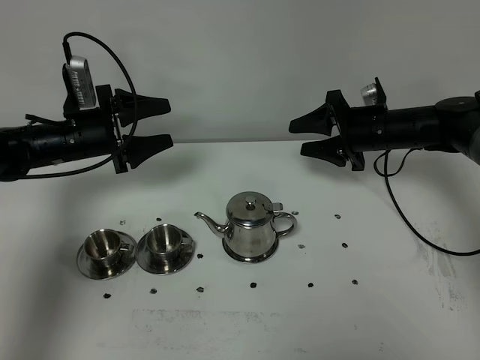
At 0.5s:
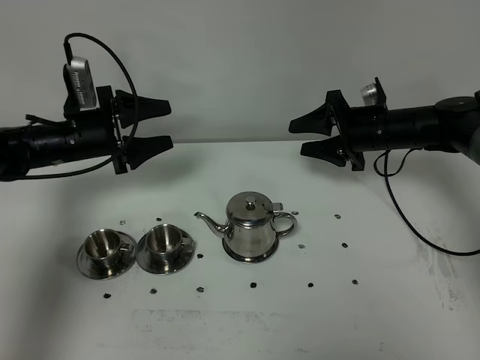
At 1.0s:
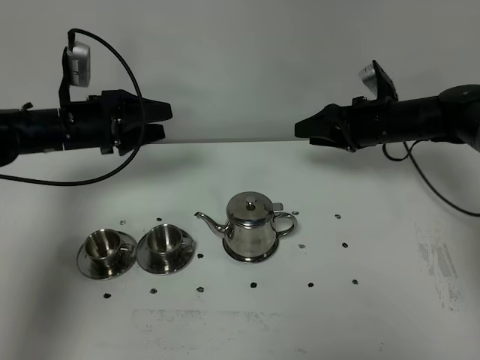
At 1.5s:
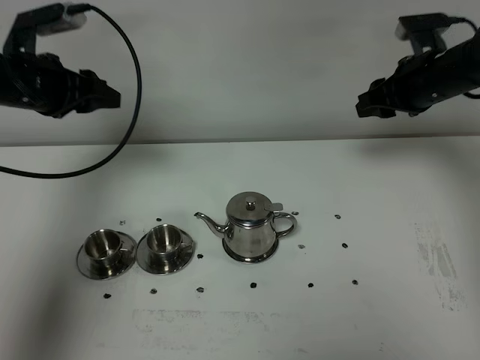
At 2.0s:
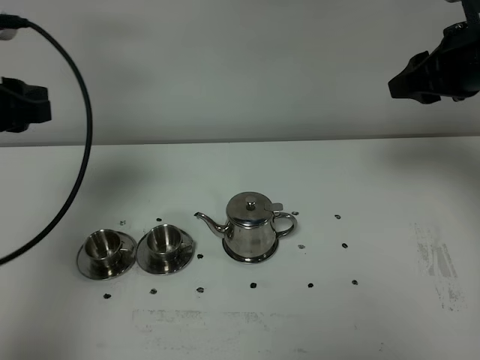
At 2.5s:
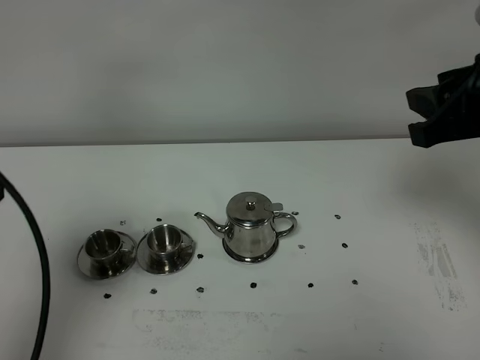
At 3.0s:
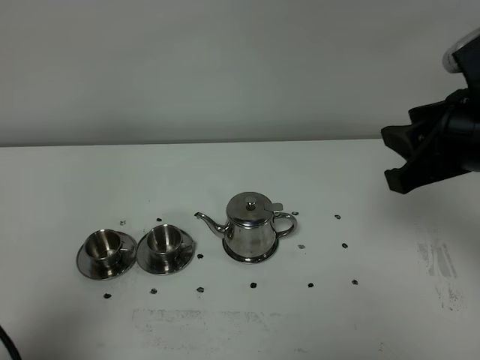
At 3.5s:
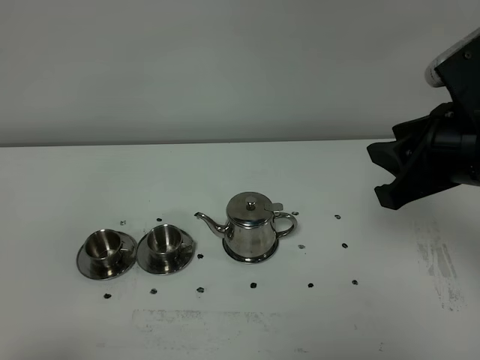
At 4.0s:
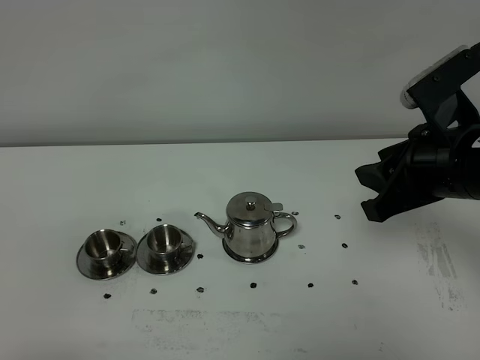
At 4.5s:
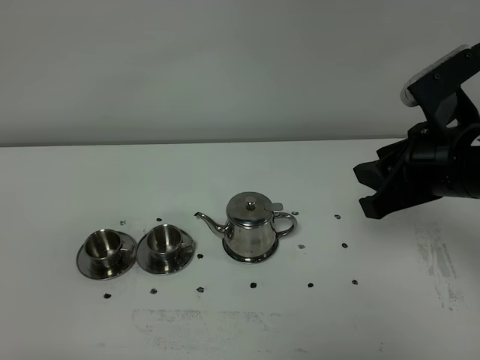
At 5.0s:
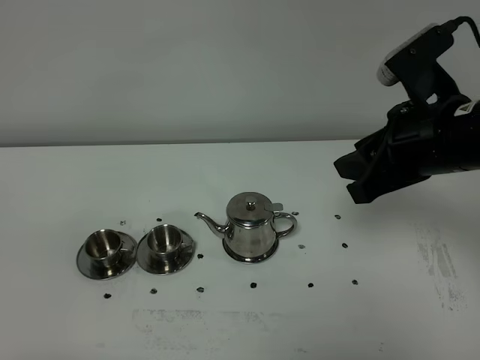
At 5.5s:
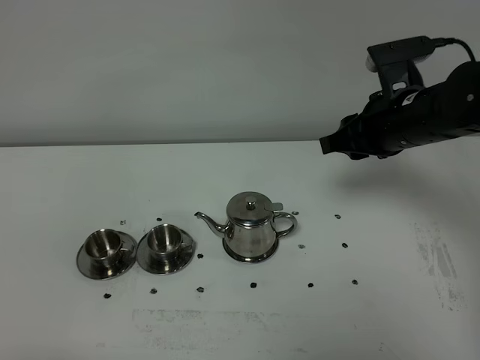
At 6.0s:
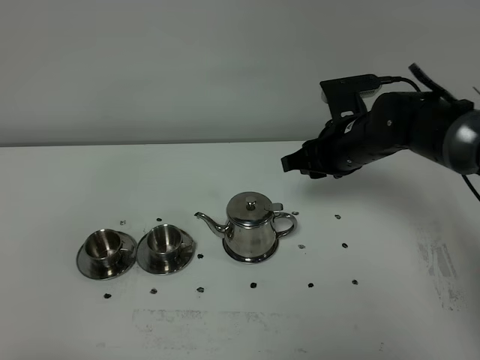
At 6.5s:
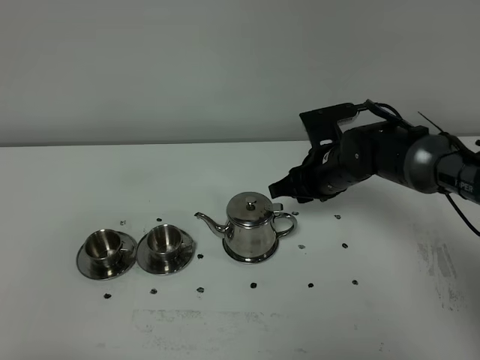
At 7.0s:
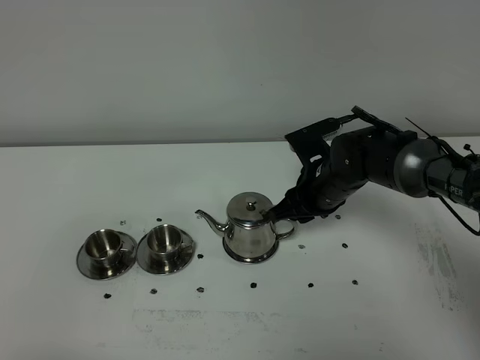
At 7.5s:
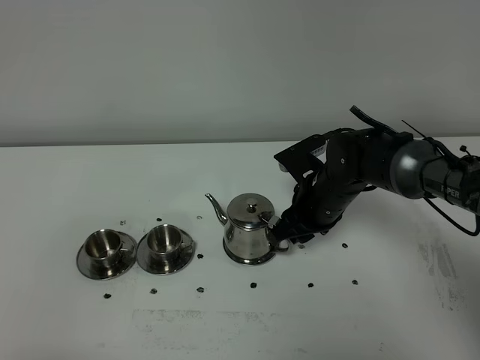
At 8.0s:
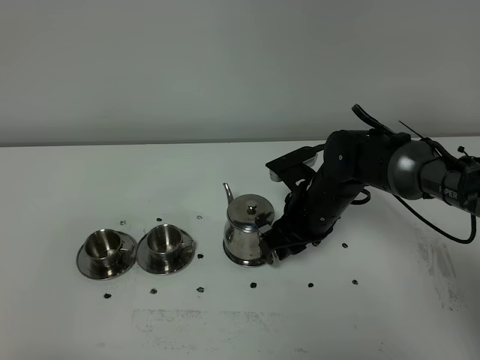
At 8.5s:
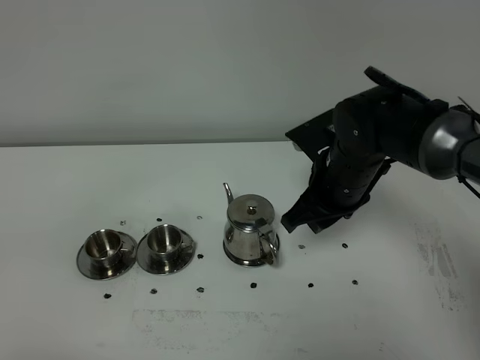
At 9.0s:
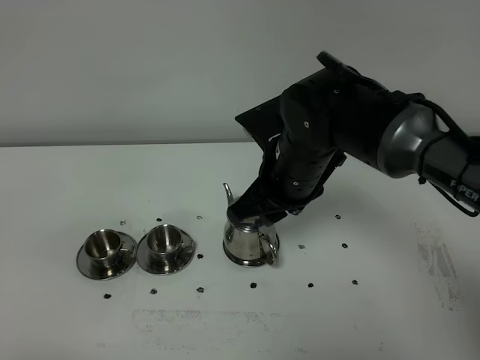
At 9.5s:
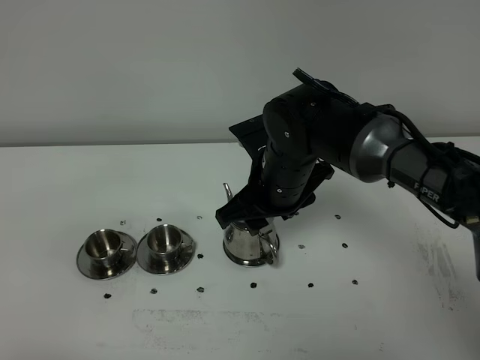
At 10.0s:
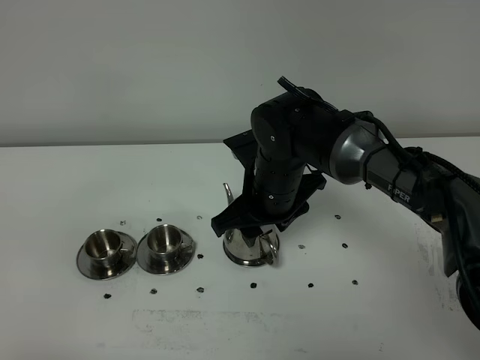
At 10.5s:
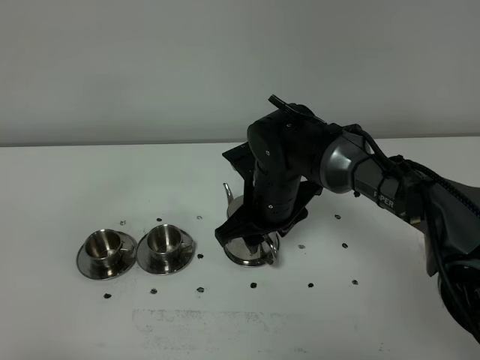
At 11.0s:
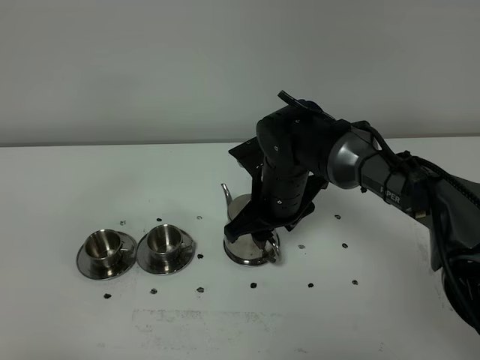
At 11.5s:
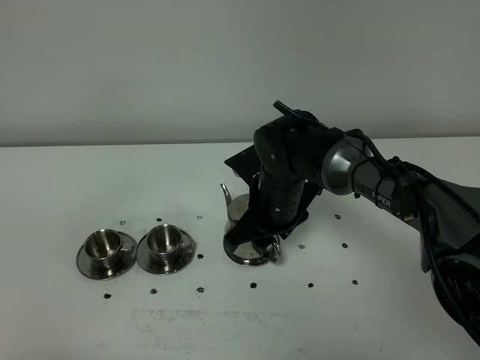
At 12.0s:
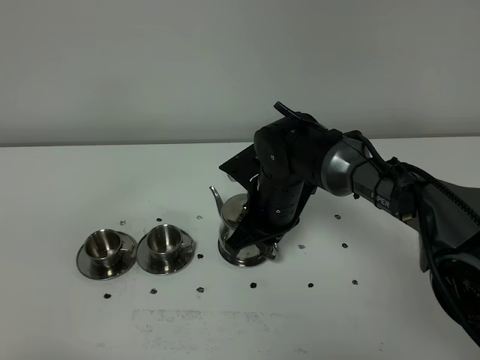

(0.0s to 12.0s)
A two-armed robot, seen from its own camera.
Task of the whole recording: grasp the stainless steel teapot and pour the tea into the two stainless steel teacups one by one, put the stainless steel teapot back in its original place.
0.0s - 2.0s: Both grippers move upward and backward, about 25 cm. The left gripper closes.
2.0s - 4.0s: The right gripper heads backward, covering approximately 10 cm, while the left gripper goes some 30 cm backward.
4.0s - 6.0s: The right gripper heads forward, downward and to the left, covering about 20 cm.
6.0s - 8.0s: The right gripper is displaced downward by roughly 5 cm.
8.0s - 10.0s: The right gripper heads to the left and upward, covering approximately 10 cm, and opens its fingers.
10.0s - 12.0s: The right gripper closes up.

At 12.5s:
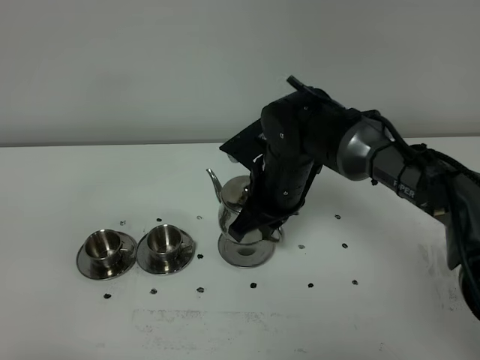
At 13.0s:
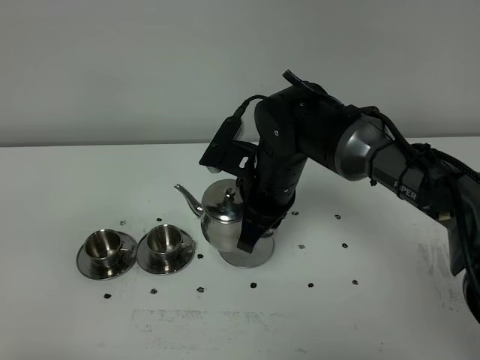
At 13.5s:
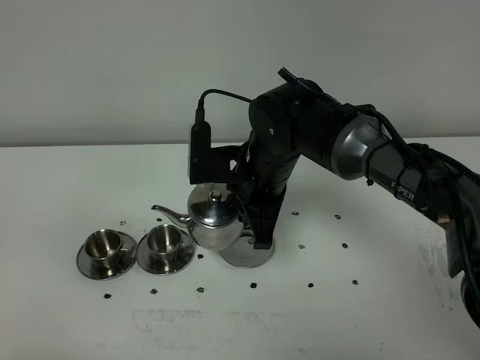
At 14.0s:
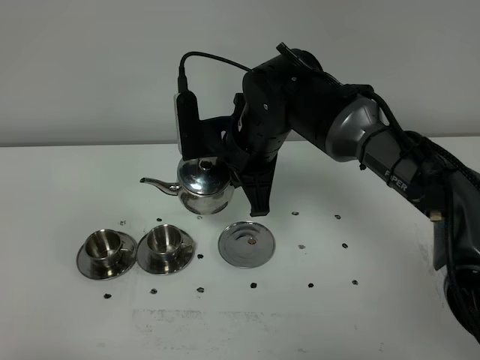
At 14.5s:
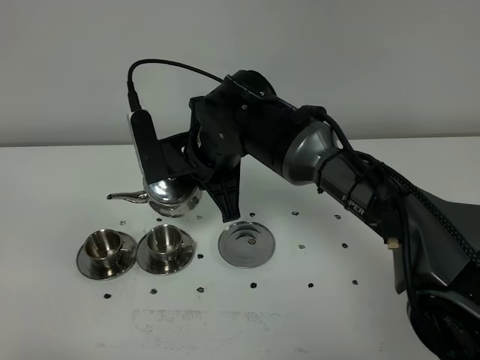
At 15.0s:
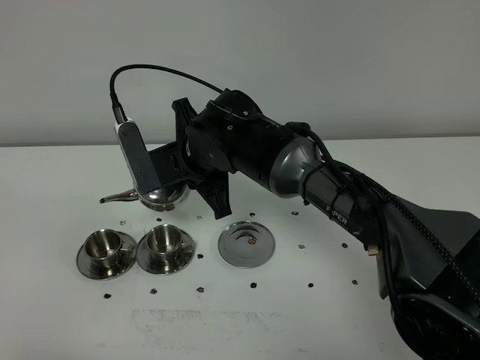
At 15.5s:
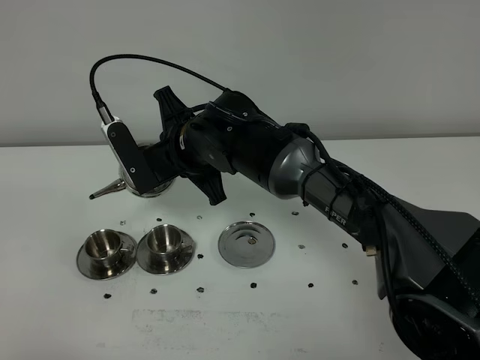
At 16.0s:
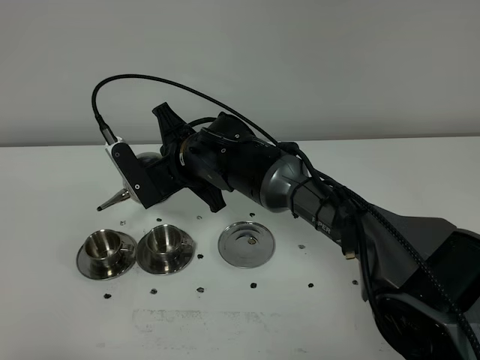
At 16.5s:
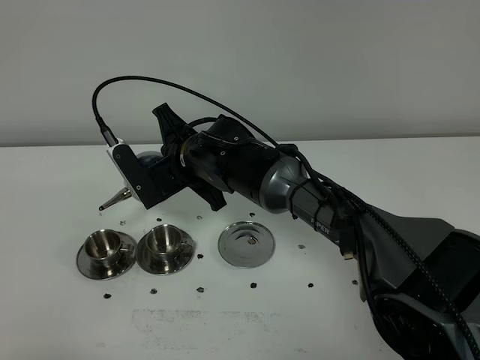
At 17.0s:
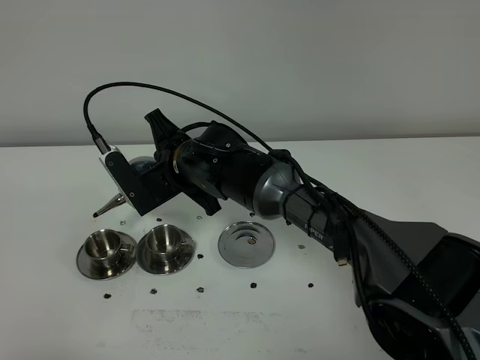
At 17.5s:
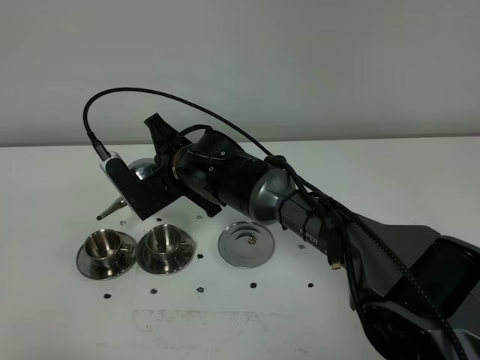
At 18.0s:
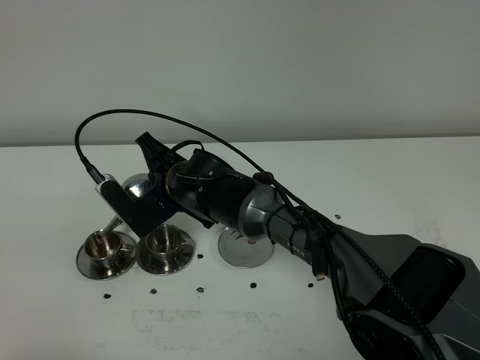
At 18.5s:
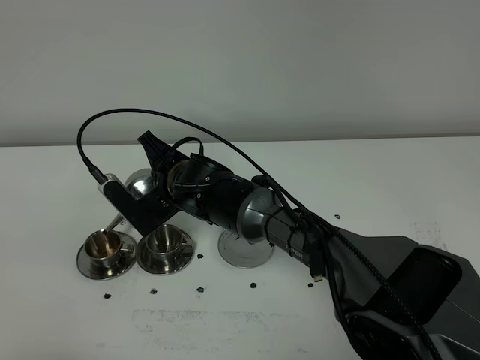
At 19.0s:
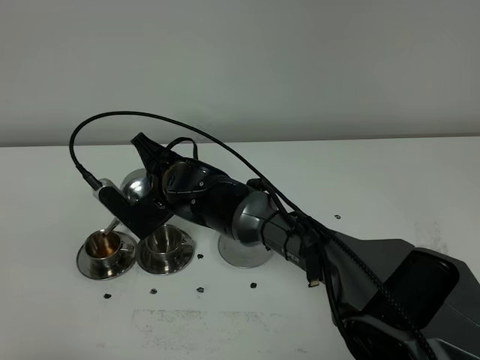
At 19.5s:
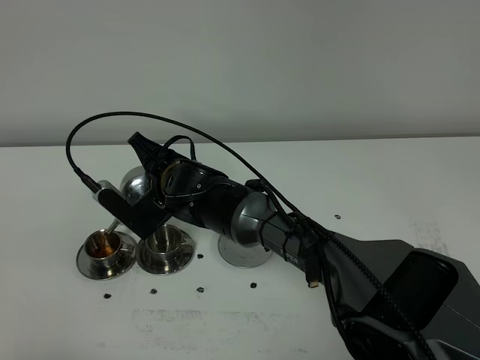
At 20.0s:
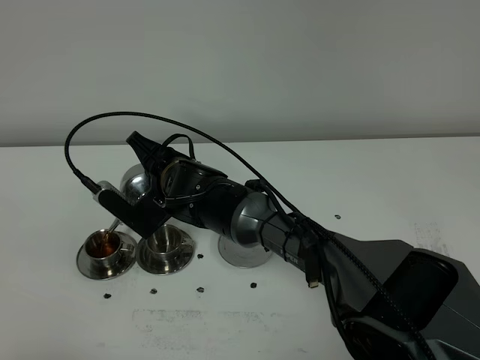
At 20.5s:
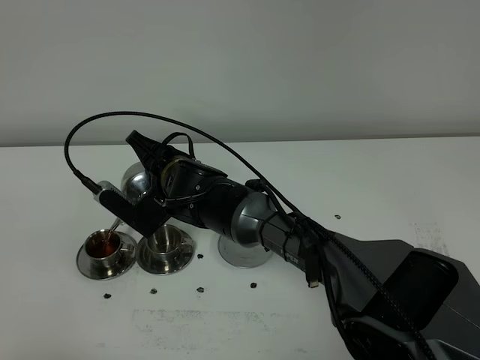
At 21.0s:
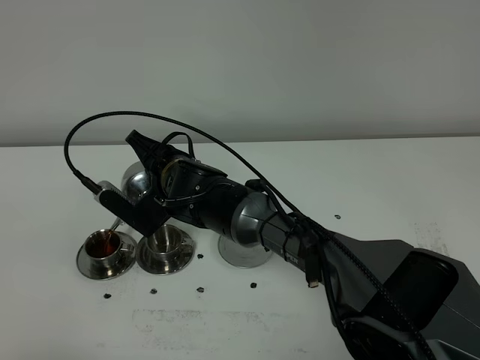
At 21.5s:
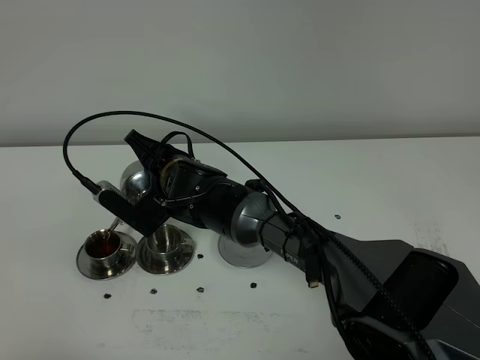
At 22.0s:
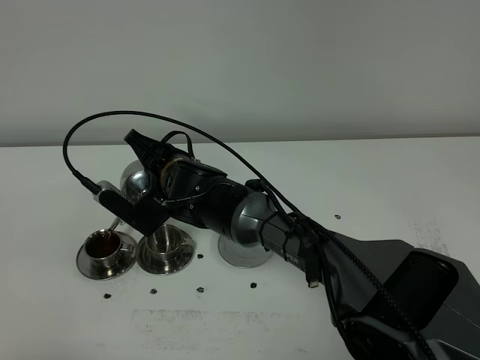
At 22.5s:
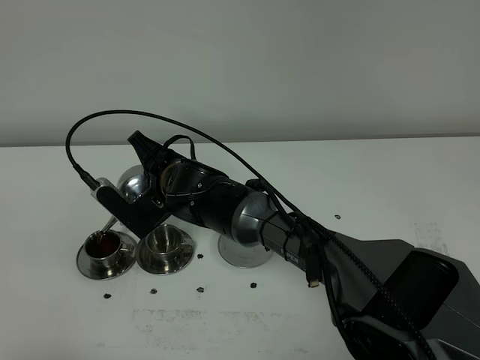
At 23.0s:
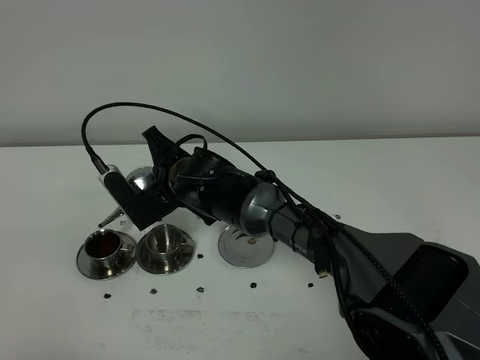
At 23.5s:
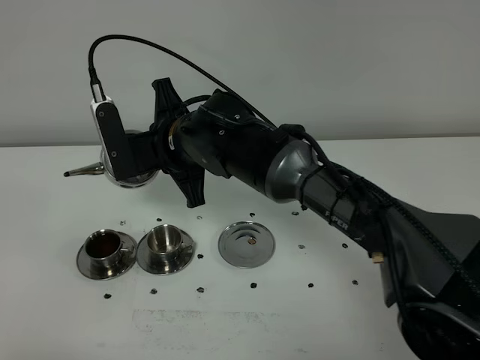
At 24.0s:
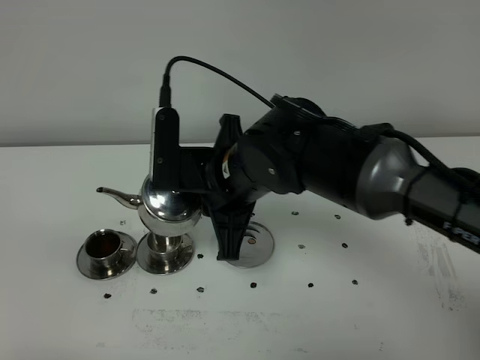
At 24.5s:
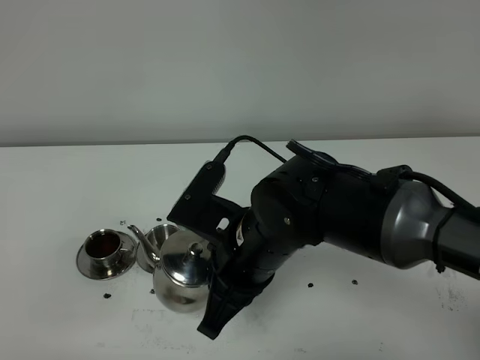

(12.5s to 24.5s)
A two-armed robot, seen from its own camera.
Task of the whole recording: grasp the stainless steel teapot and pour the tea into the two stainless steel teacups one by one, put the stainless steel teapot back in its original place.
12.5s - 14.5s: The right gripper shifts some 5 cm to the left.
14.5s - 16.5s: The right gripper moves approximately 5 cm.
18.5s - 22.5s: The grippers make only small movements.
22.5s - 24.5s: The right gripper heads backward, to the right and upward, covering about 20 cm.

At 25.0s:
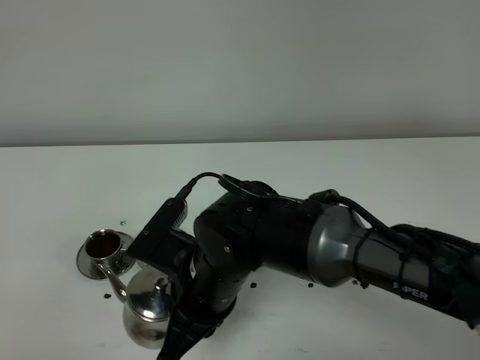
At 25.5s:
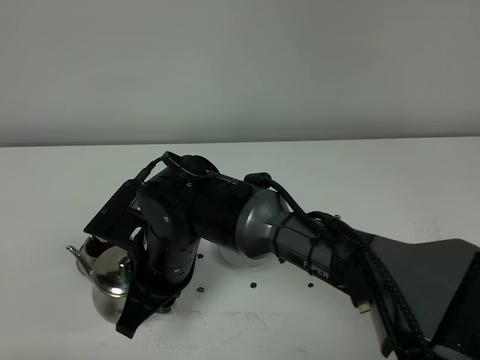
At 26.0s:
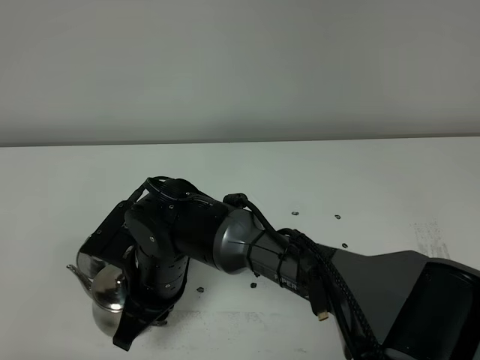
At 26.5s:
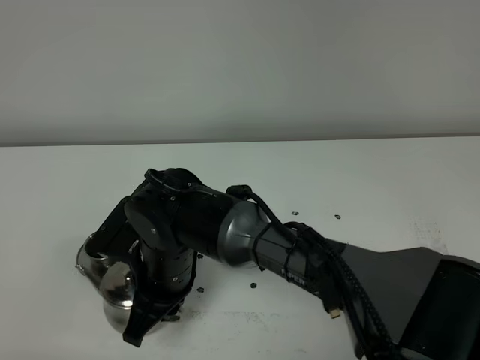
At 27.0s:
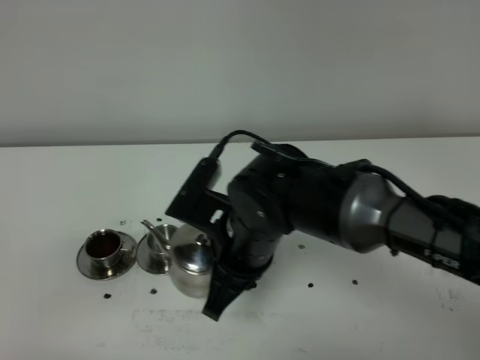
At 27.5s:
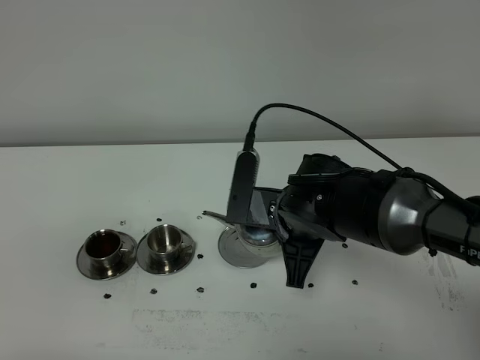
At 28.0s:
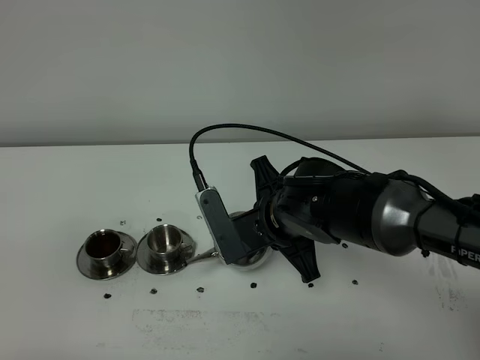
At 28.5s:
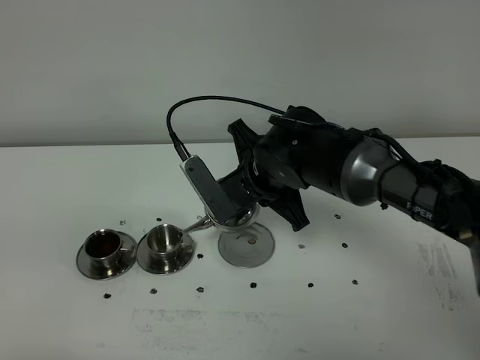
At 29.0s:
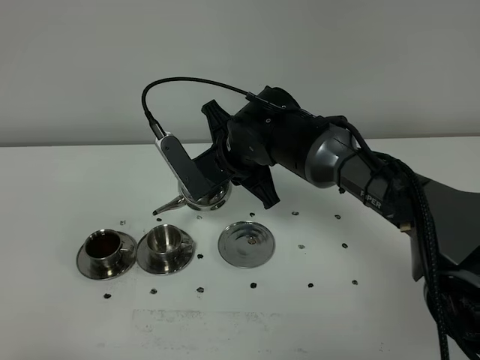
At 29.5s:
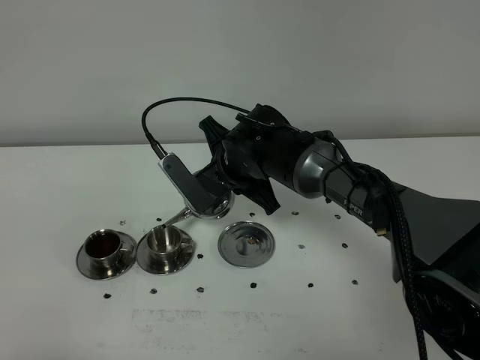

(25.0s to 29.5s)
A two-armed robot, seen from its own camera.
Task of the whole recording: grasp the stainless steel teapot and pour the tea into the two stainless steel teacups one by one, put the stainless steel teapot back in its original place.
27.0s - 29.5s: The right gripper goes some 15 cm forward.
